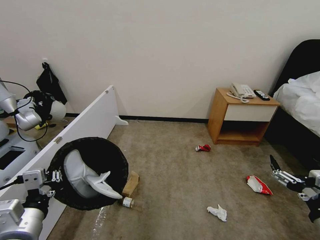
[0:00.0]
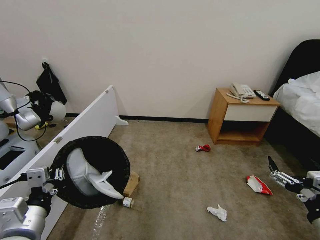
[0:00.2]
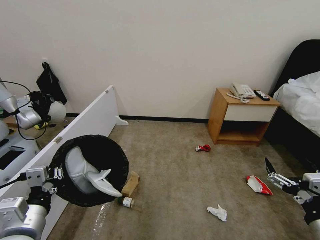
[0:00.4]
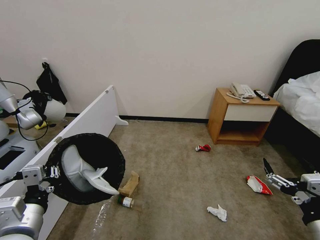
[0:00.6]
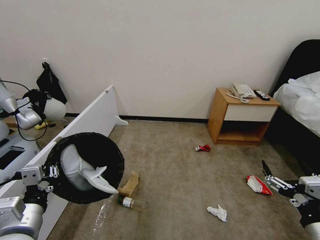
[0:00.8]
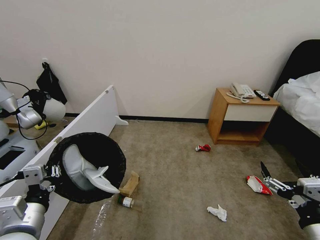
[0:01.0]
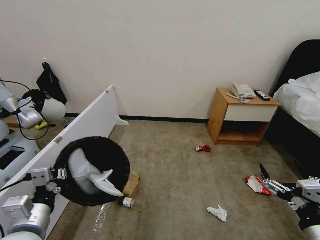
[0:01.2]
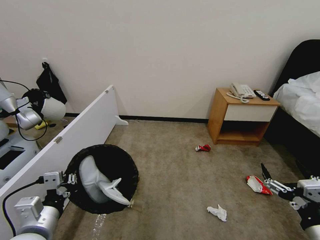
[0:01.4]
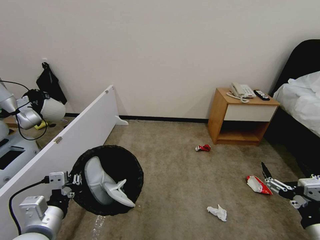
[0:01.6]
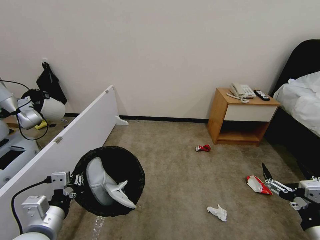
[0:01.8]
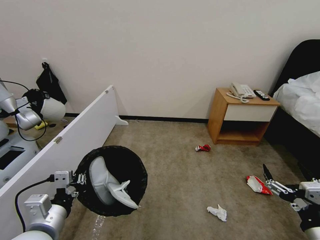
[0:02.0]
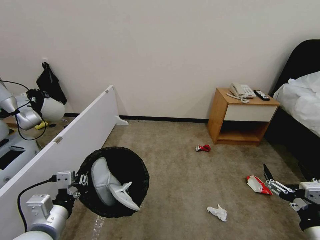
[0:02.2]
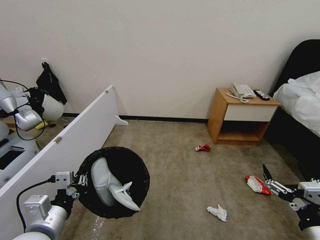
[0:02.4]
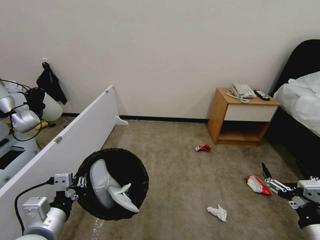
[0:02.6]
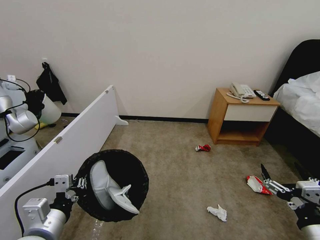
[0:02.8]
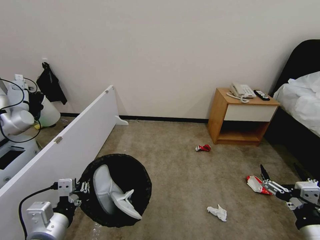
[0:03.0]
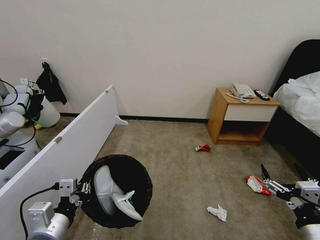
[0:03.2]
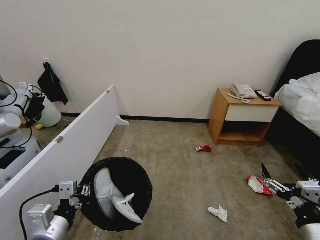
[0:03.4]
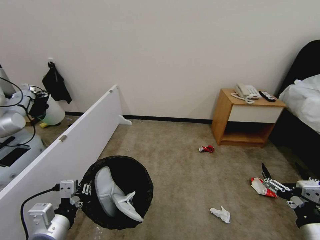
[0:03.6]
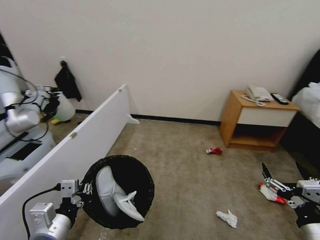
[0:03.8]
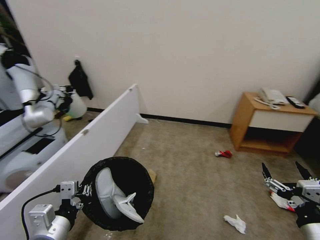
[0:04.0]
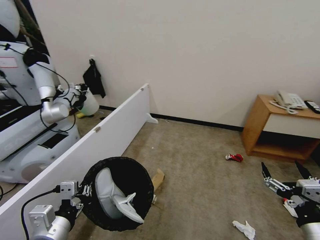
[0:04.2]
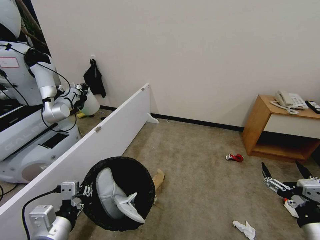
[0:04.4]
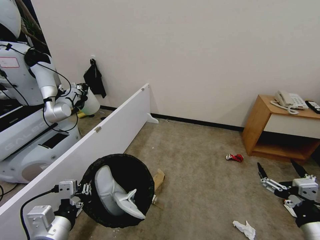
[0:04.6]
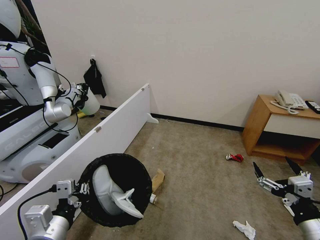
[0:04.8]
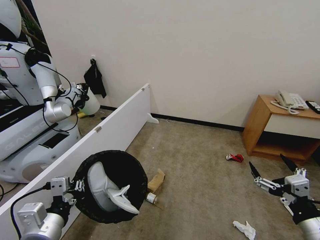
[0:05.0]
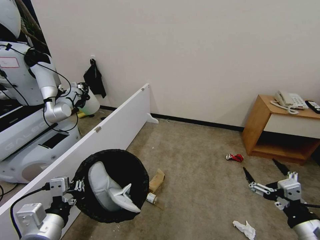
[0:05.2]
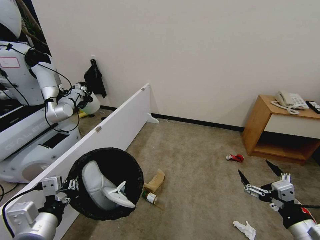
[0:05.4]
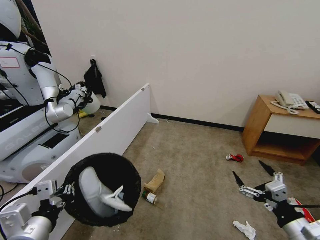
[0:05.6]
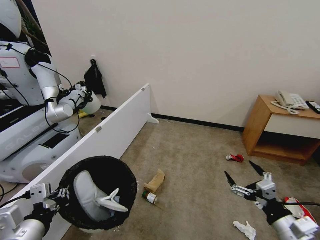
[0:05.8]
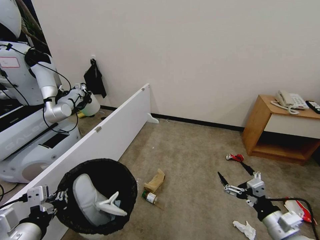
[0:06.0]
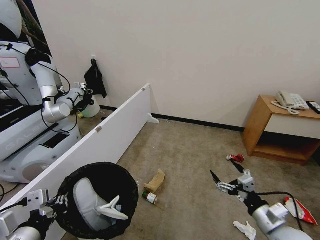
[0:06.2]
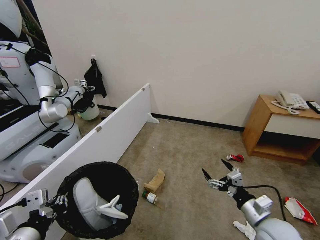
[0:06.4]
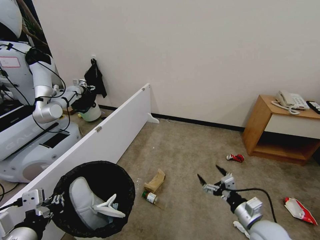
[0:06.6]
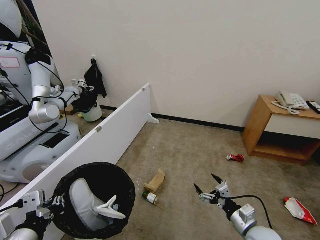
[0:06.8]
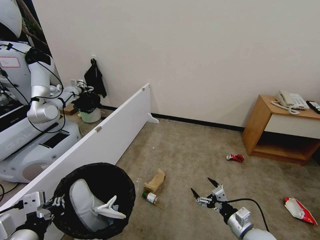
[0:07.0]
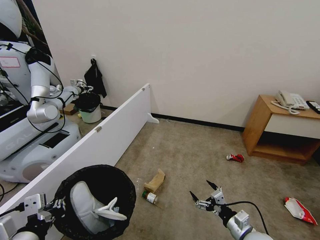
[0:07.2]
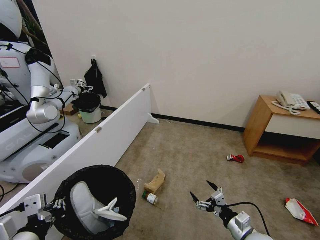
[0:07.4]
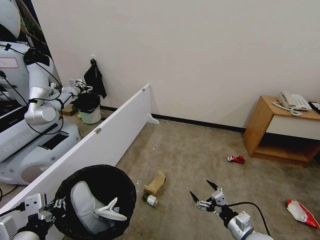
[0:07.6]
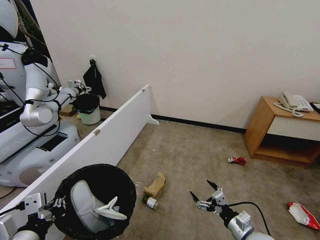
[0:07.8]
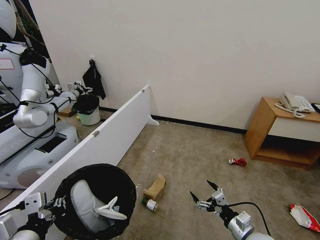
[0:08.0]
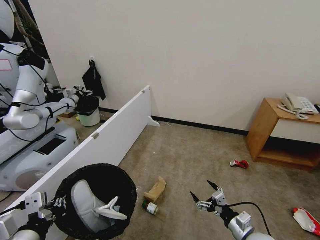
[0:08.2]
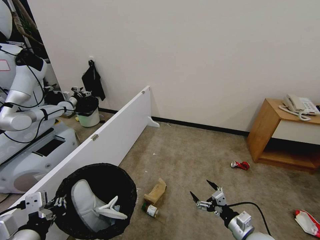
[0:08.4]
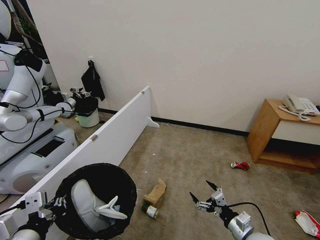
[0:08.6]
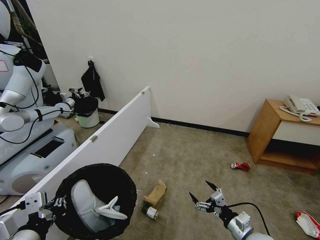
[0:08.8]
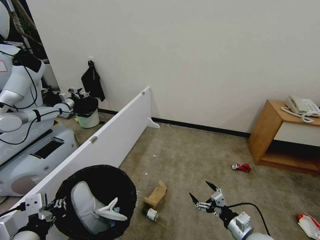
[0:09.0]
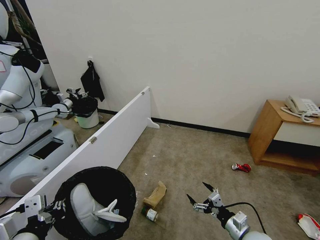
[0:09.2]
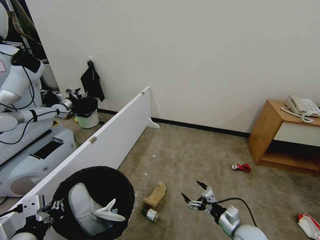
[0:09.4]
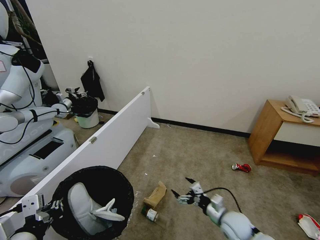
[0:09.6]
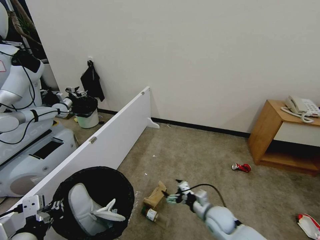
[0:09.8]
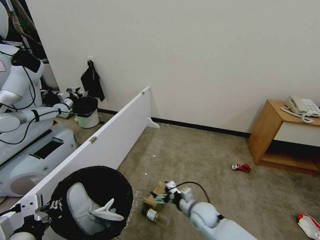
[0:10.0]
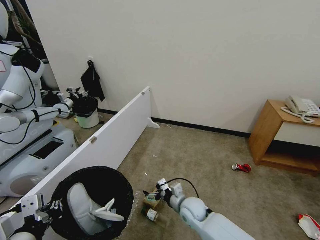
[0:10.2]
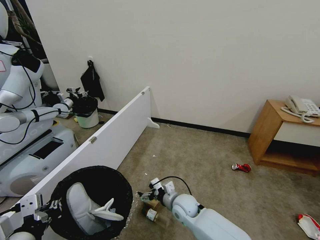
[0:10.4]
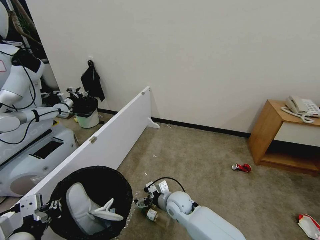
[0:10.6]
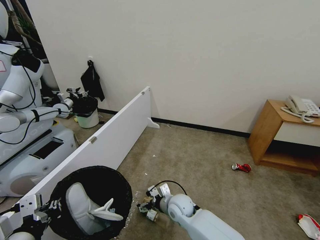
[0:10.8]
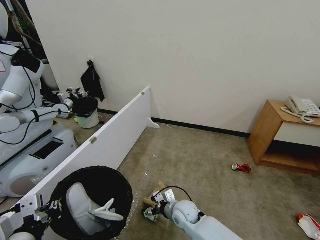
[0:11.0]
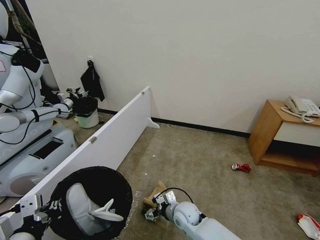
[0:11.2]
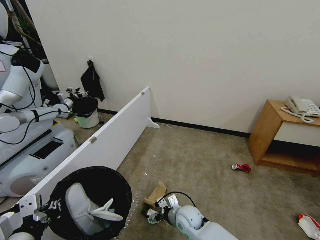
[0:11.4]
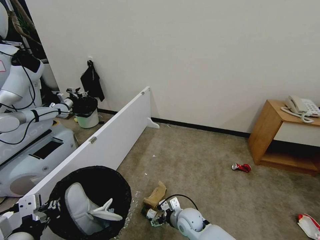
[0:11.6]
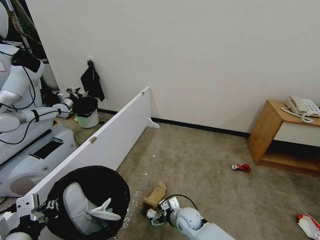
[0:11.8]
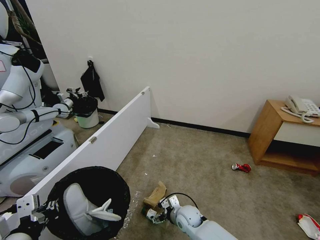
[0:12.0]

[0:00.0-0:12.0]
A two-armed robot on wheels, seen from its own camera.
Task of the whole recording: Pick up the trash bin, then pick up the garbage from the floor and place it into the trash bin.
0:00.0 to 0:03.0: The grippers stay close to where they were, moving slightly.
0:04.4 to 0:06.0: The right gripper shifts some 5 cm forward and downward; the left gripper moves some 5 cm.
0:06.0 to 0:07.6: The right gripper is displaced downward by about 10 cm.
0:09.0 to 0:10.4: The right gripper goes about 25 cm to the left and forward.
0:10.4 to 0:12.0: The right gripper moves downward, about 5 cm.

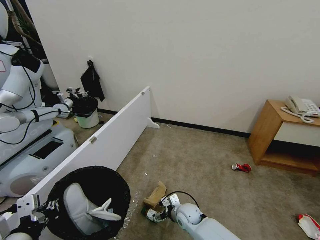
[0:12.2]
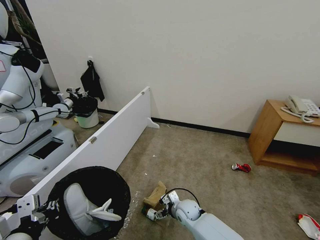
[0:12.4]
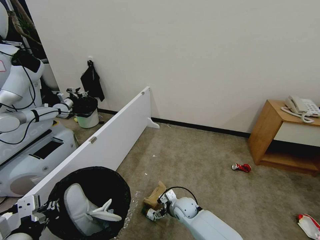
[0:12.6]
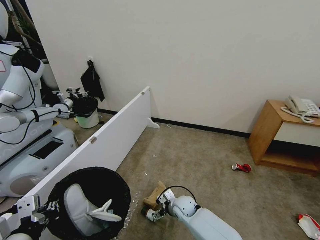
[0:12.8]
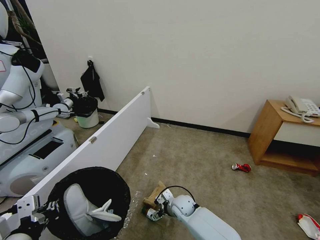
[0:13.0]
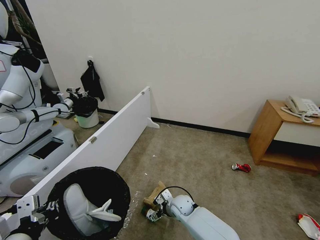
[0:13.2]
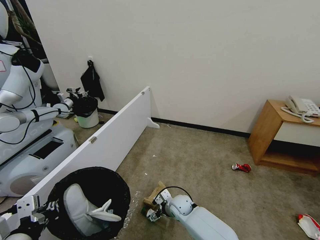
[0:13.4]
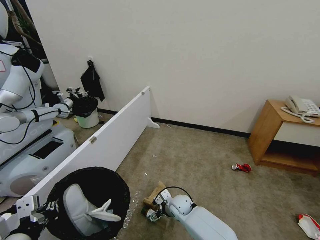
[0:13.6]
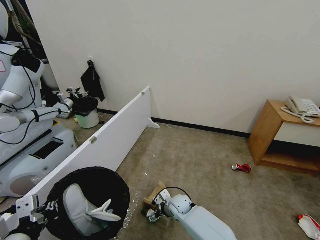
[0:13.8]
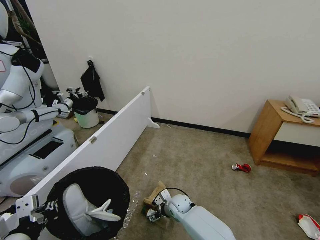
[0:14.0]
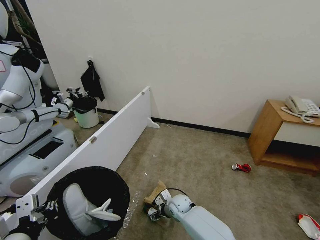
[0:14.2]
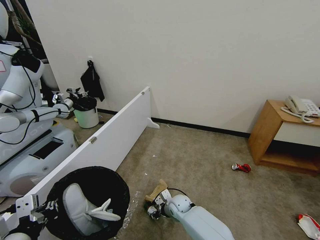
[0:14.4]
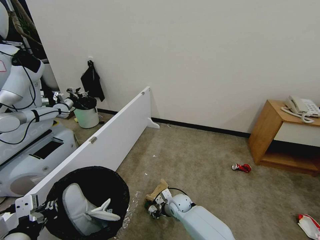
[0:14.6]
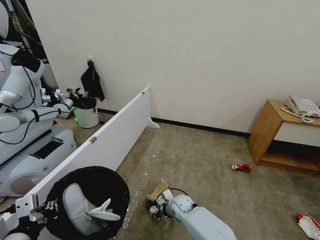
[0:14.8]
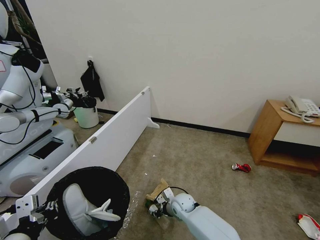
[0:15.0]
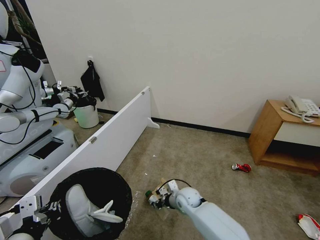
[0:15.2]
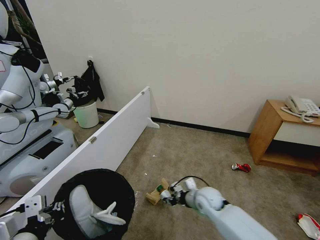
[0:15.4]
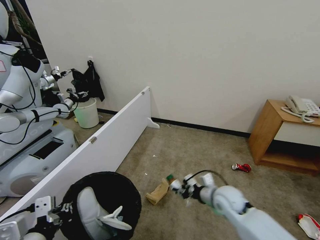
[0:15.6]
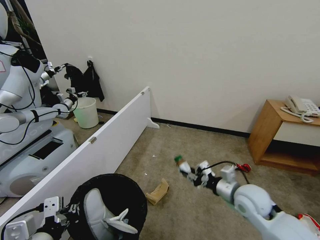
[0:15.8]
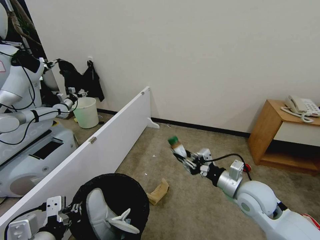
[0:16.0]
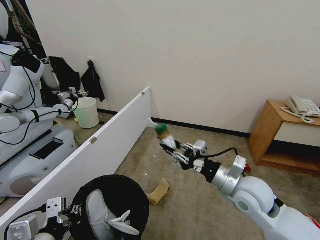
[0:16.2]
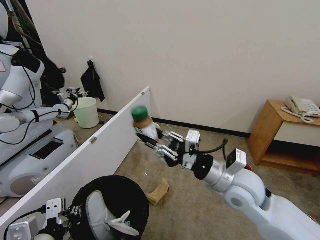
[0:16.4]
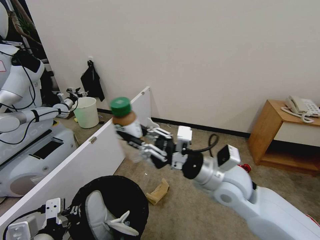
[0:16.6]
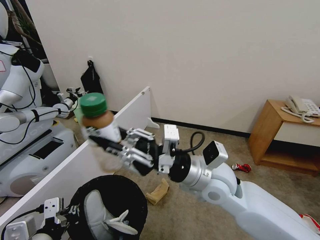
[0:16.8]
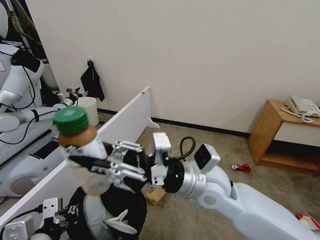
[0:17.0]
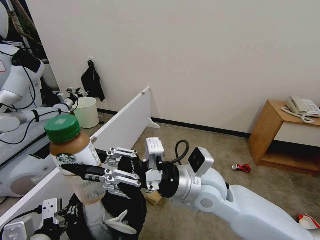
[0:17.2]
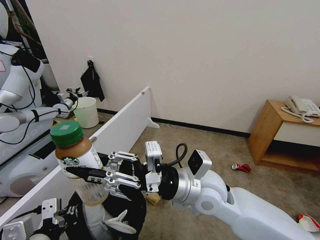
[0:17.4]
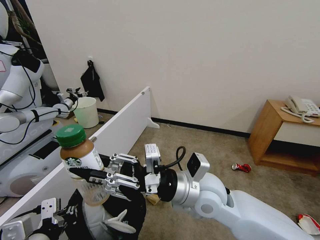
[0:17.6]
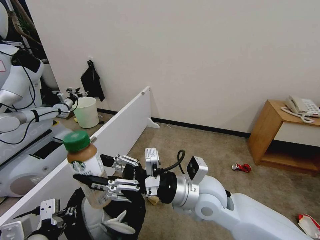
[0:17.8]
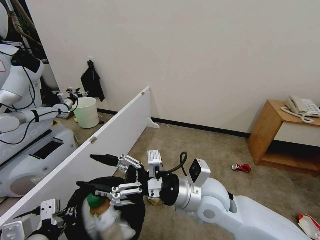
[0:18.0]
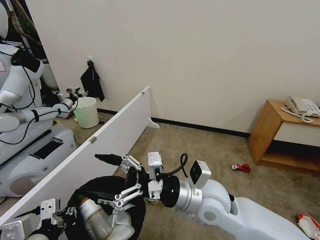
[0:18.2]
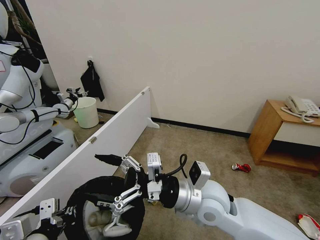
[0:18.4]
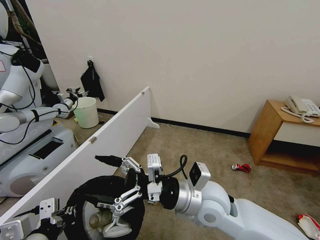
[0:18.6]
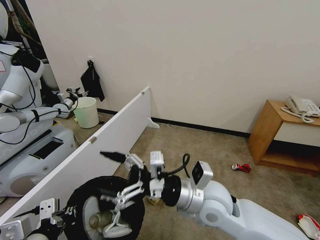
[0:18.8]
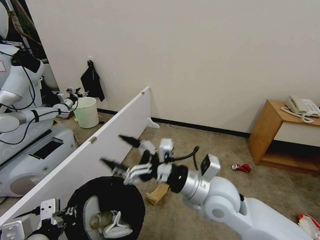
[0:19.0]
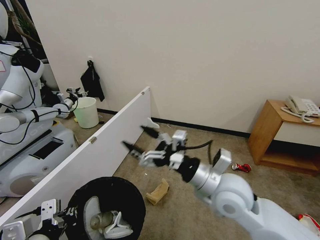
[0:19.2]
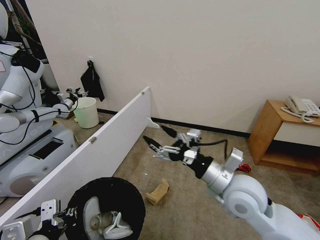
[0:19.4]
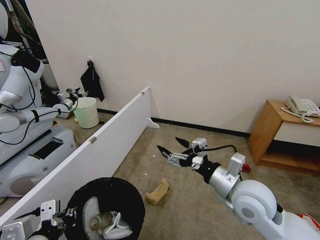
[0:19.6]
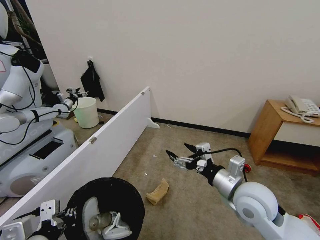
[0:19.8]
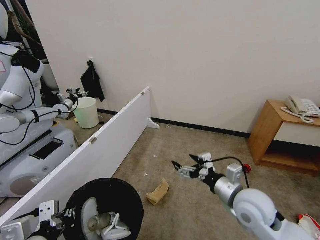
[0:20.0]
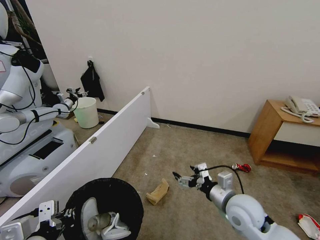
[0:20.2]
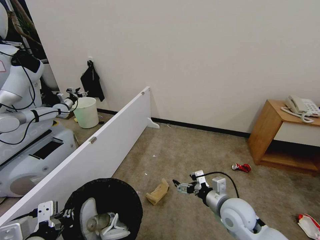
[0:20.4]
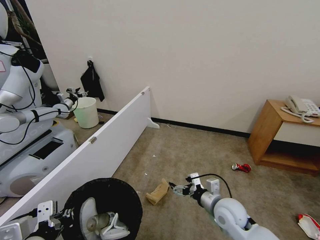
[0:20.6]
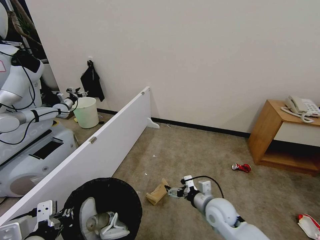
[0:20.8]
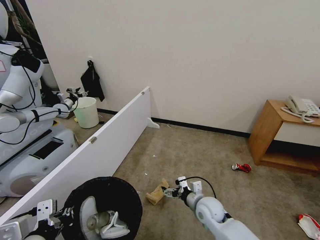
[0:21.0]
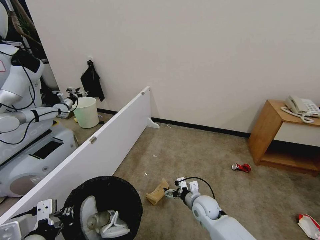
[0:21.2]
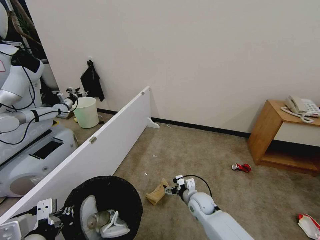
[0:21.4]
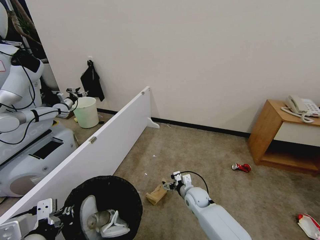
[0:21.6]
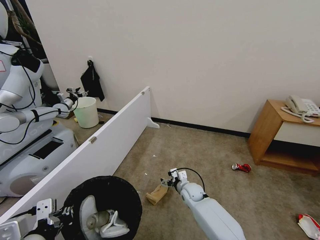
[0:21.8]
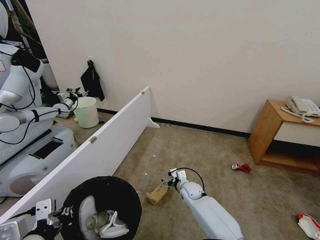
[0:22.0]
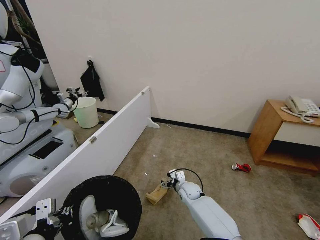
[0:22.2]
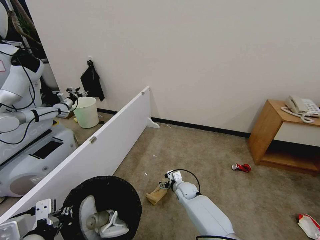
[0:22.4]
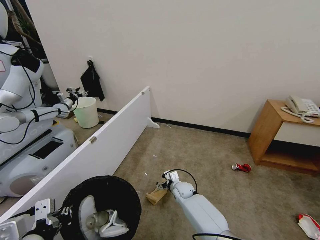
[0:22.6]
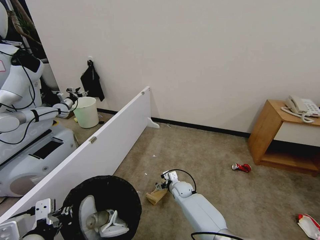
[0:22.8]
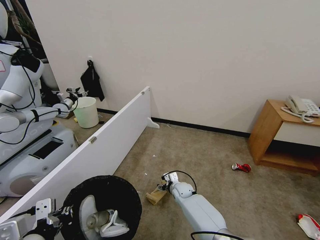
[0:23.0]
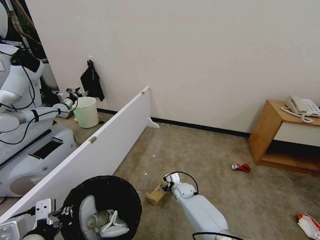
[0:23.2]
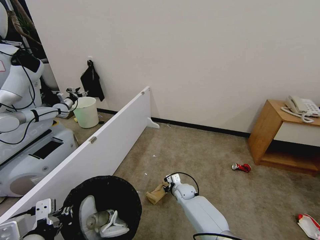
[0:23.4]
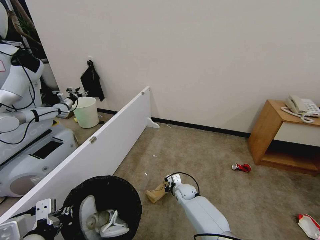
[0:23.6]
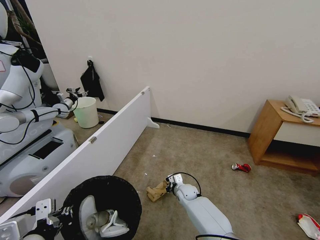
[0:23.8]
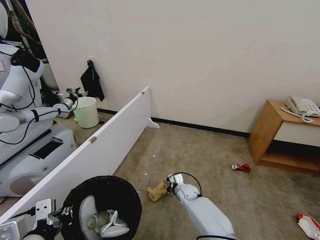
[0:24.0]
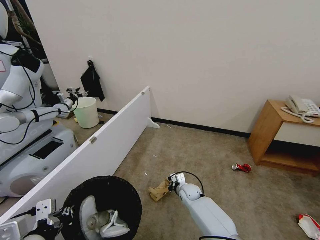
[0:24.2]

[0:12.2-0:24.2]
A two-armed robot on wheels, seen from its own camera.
Task of the whole recording: Pick up the trash bin, then pick up the garbage from the floor and place it into the trash bin.
0:12.2 to 0:13.8: The right gripper changes place by about 5 cm.
0:13.8 to 0:15.2: The right gripper heads upward, covering approximately 5 cm, and closes.
0:15.2 to 0:16.6: The right gripper moves upward, roughly 30 cm.
0:16.6 to 0:18.2: The right gripper ends up approximately 5 cm from where it was, and opens up.
0:18.2 to 0:19.8: The right gripper moves to the right, about 10 cm.
0:19.8 to 0:21.2: The right gripper moves downward, approximately 25 cm.
0:21.2 to 0:22.6: The right gripper heads forward, to the left and downward, covering some 15 cm.
0:22.6 to 0:24.2: The right gripper closes its fingers.
